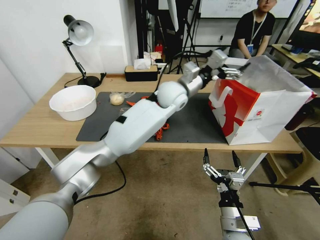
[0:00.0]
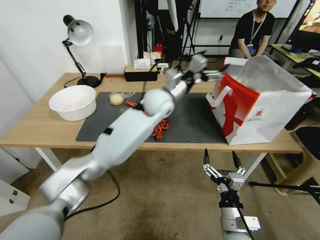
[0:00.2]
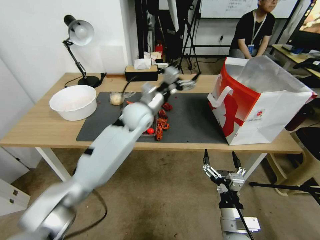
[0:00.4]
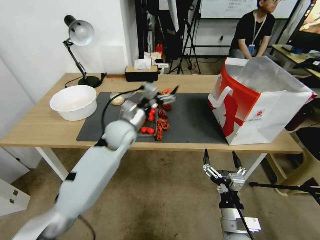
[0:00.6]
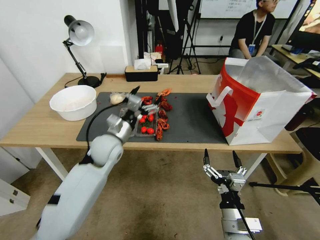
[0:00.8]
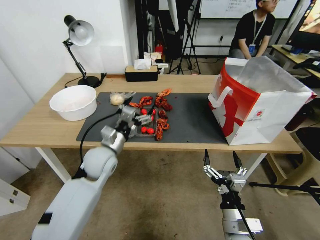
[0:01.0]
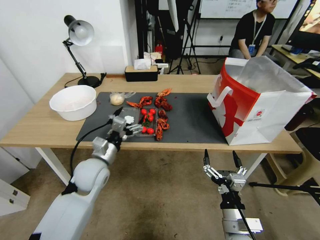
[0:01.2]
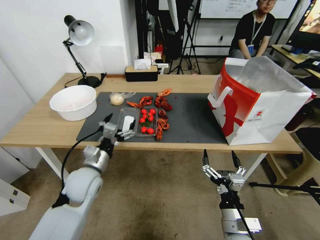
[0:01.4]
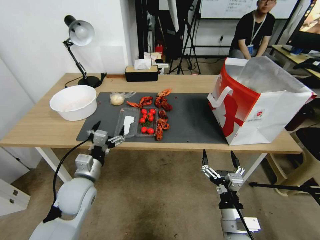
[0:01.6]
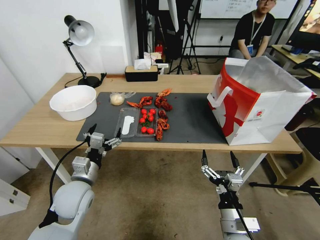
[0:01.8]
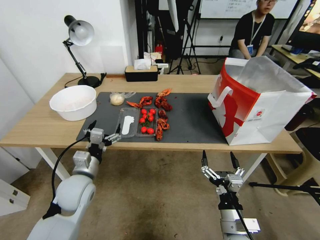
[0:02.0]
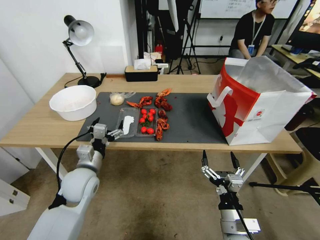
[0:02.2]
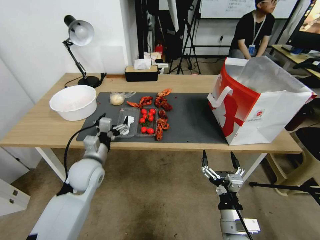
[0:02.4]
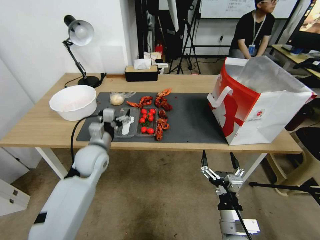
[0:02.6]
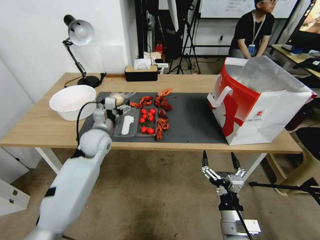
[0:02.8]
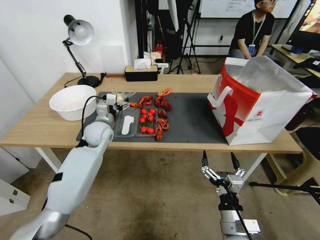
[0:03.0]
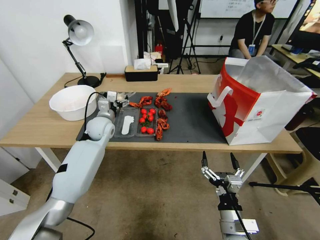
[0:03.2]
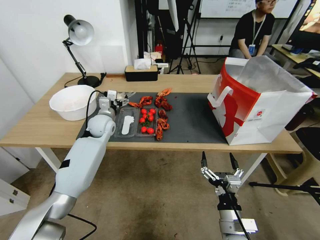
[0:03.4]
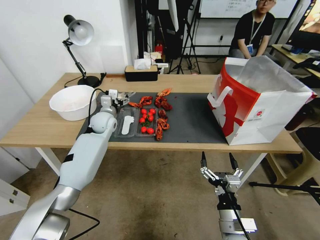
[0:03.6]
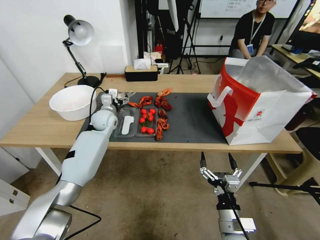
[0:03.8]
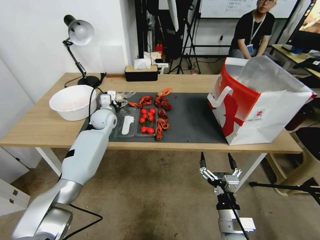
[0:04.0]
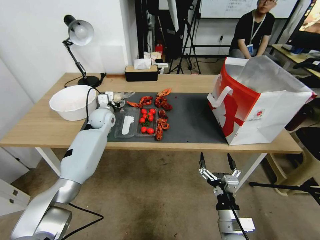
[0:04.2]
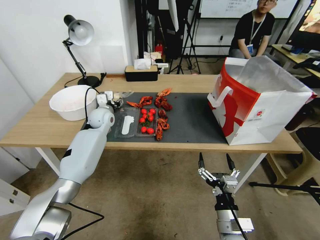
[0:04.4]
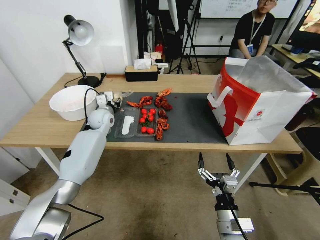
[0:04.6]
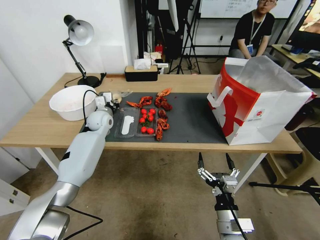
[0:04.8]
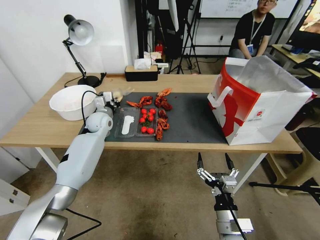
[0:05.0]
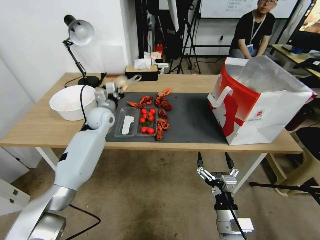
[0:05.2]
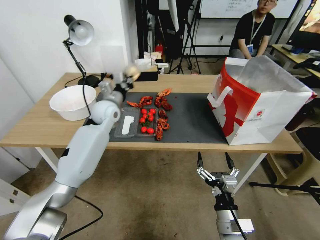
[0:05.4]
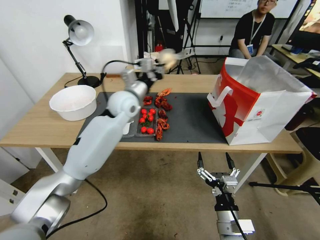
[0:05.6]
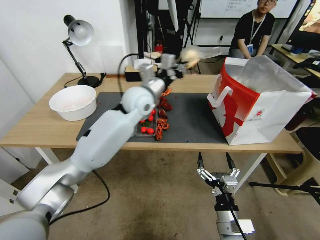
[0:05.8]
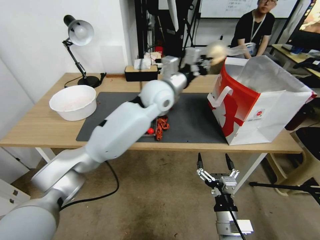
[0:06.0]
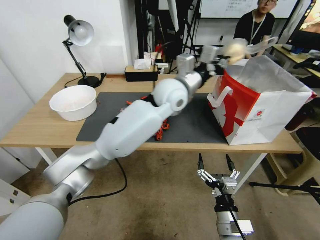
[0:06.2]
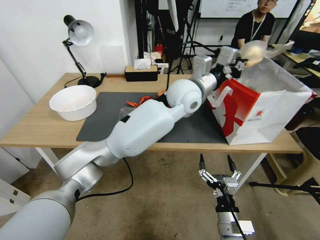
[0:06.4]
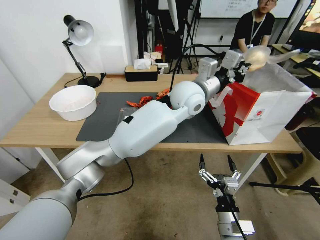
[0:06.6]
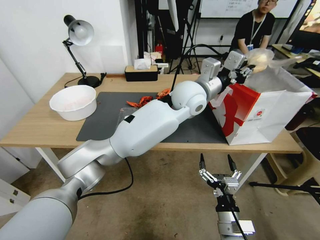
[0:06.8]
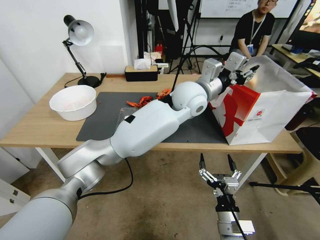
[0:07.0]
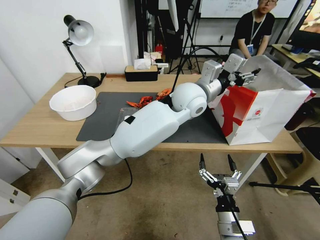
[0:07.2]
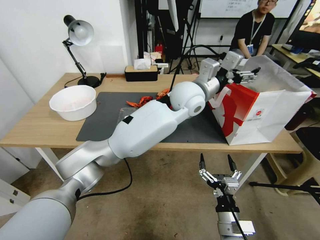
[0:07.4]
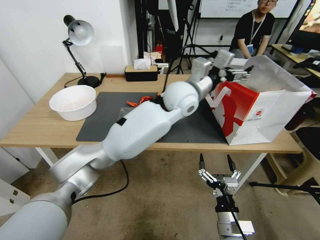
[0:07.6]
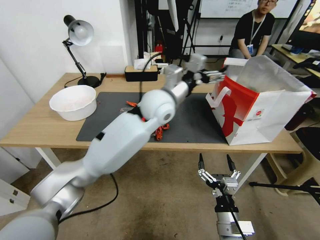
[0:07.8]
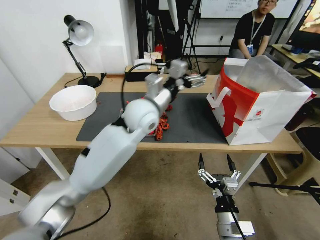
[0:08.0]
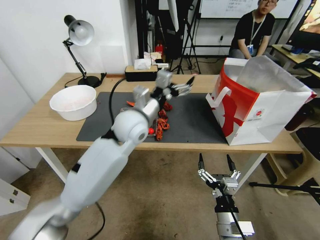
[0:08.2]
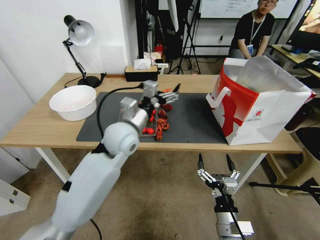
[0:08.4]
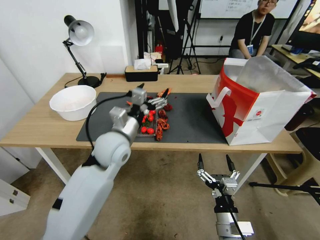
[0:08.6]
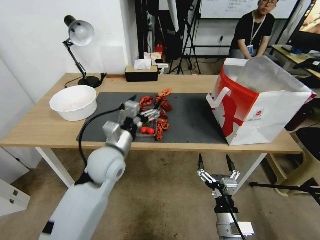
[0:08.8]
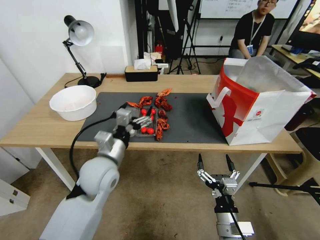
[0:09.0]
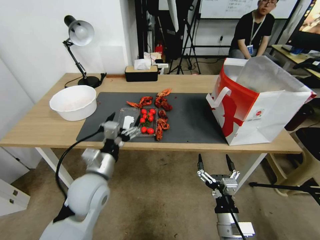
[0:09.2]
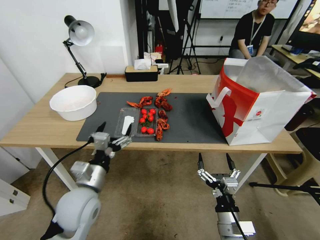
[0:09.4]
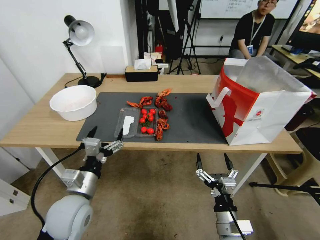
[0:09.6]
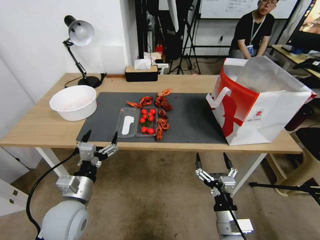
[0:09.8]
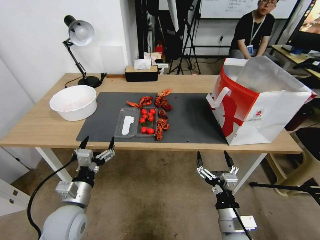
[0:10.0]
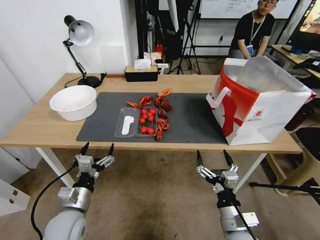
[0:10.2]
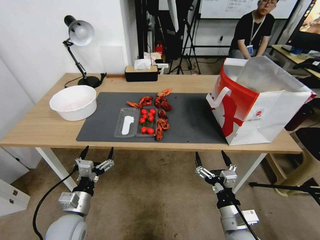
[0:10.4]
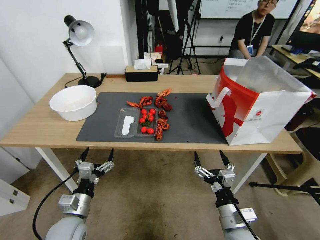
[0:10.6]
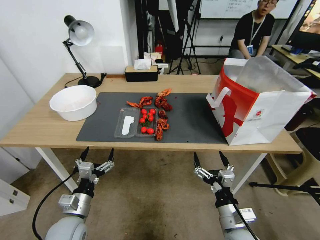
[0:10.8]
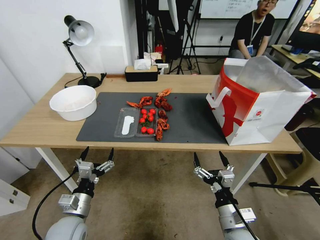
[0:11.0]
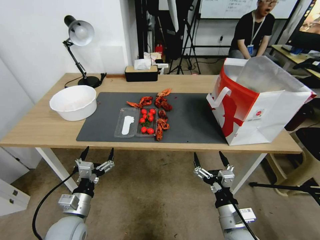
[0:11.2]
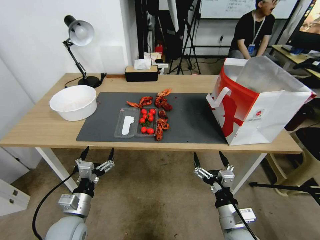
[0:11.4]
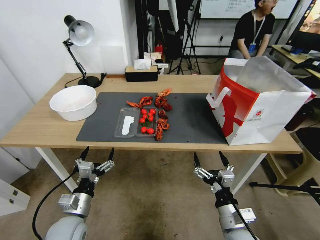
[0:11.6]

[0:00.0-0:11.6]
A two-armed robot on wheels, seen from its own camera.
0:00.0 to 0:01.4: The left gripper travels to the left, backward and downward by roughly 40 cm.
0:01.4 to 0:02.8: The left gripper is displaced forward by about 10 cm.
0:02.8 to 0:04.4: The left gripper moves forward, some 15 cm.
0:04.4 to 0:05.8: The left gripper goes some 20 cm to the right, upward and backward, and closes its fingers.
0:05.8 to 0:07.2: The left gripper travels to the right by about 15 cm, and opens.
0:07.2 to 0:08.8: The left gripper heads to the left, backward and downward, covering some 30 cm, and opens its fingers.
0:08.8 to 0:10.2: The left gripper goes approximately 20 cm downward, backward and to the left.
0:10.2 to 0:11.6: The grippers make only small movements.
